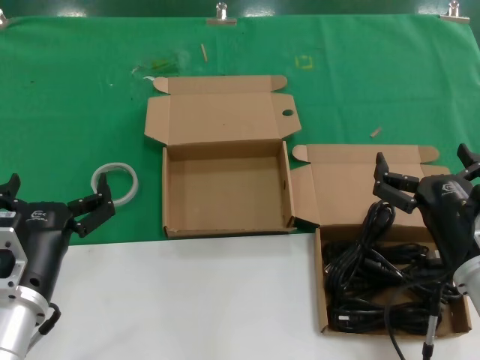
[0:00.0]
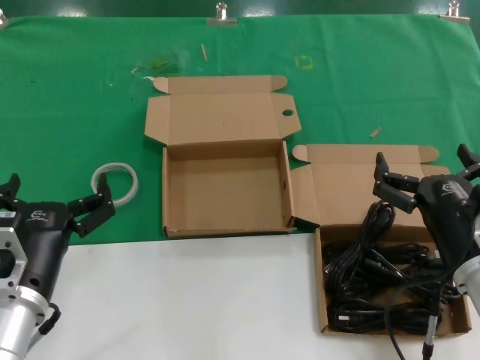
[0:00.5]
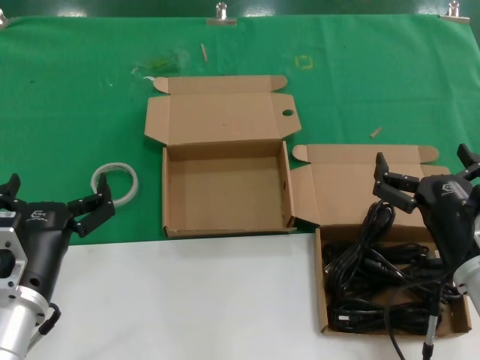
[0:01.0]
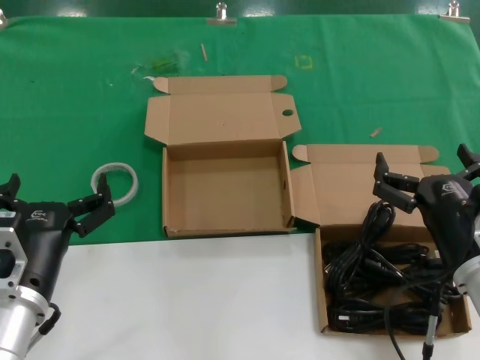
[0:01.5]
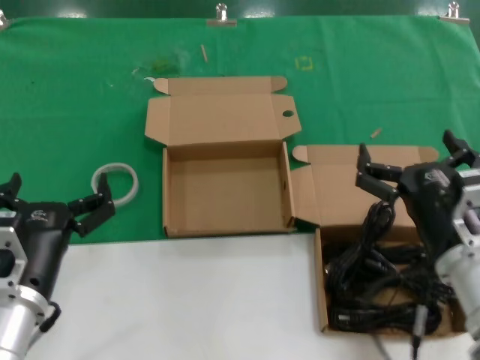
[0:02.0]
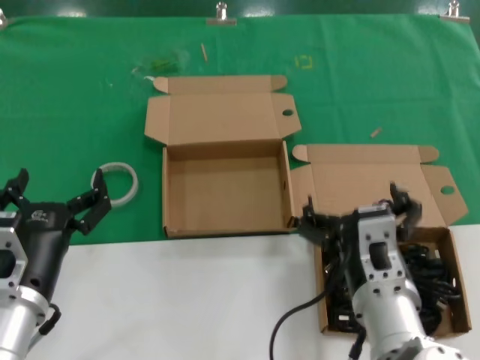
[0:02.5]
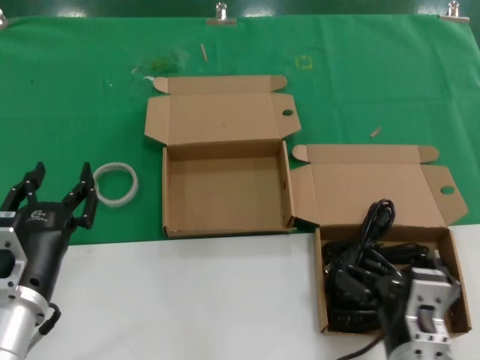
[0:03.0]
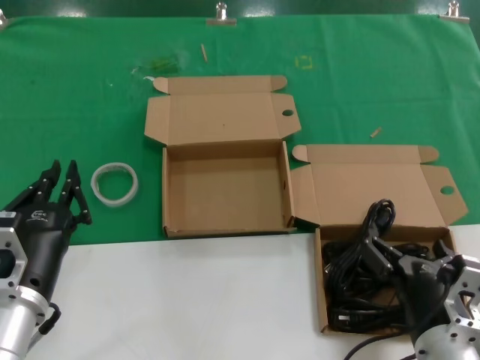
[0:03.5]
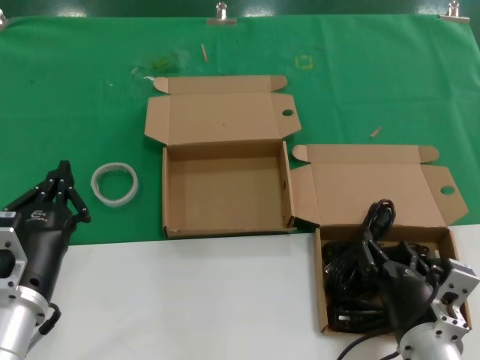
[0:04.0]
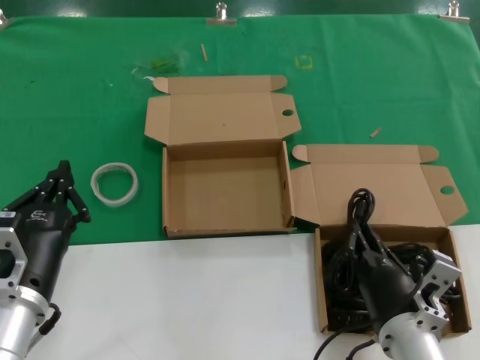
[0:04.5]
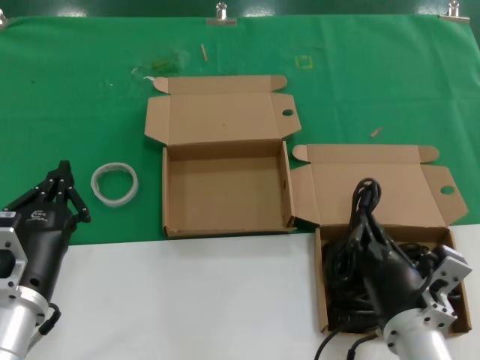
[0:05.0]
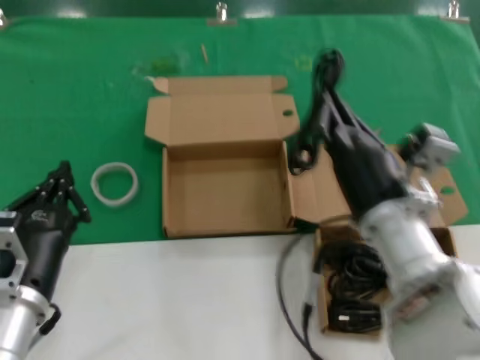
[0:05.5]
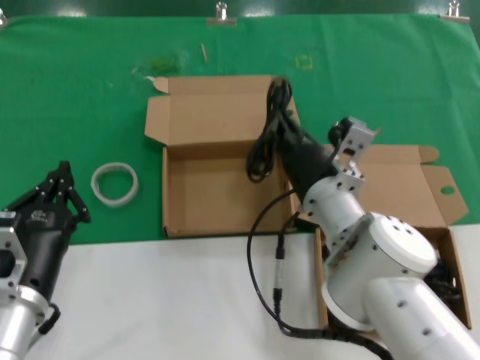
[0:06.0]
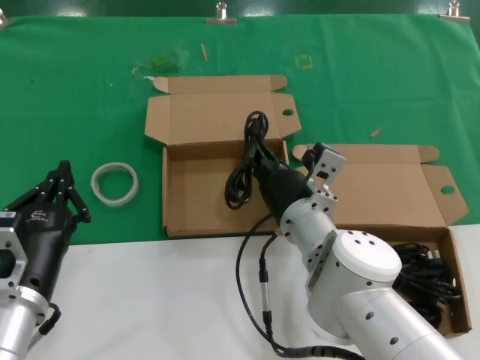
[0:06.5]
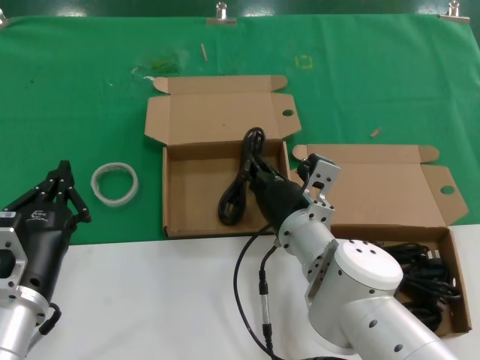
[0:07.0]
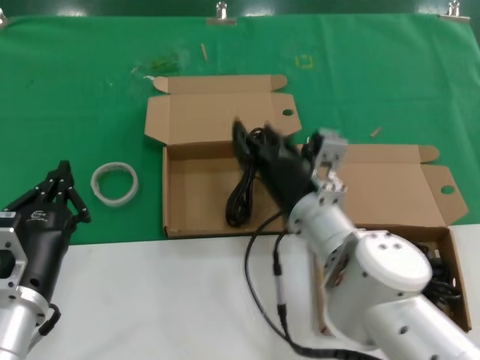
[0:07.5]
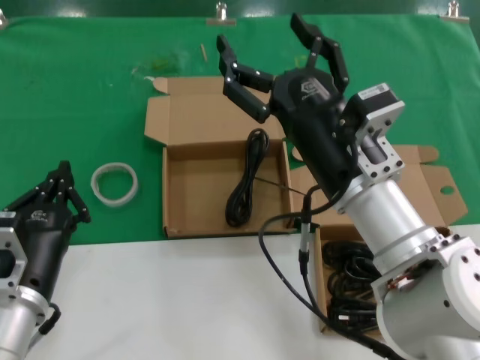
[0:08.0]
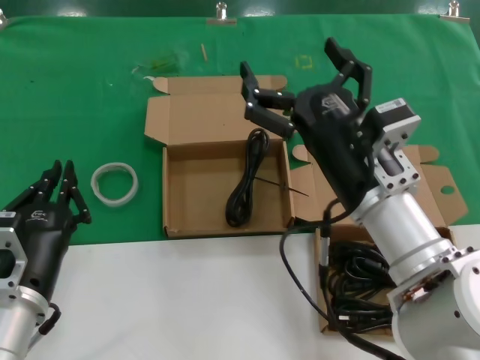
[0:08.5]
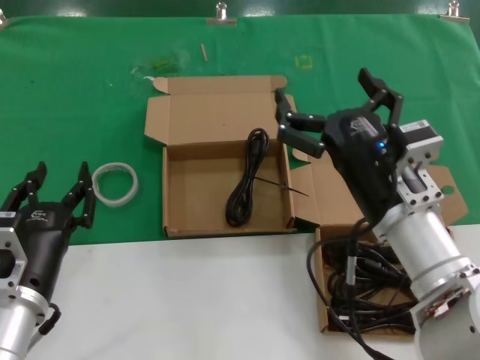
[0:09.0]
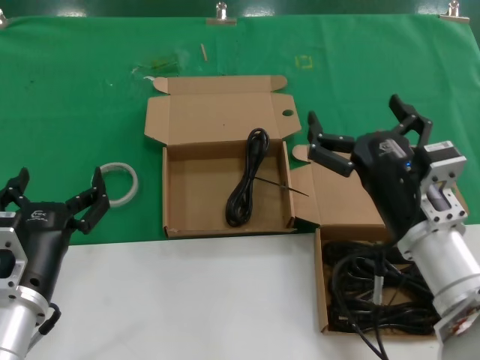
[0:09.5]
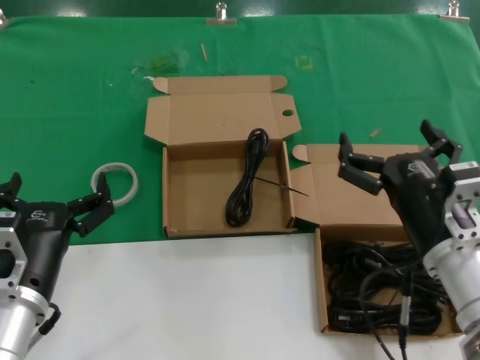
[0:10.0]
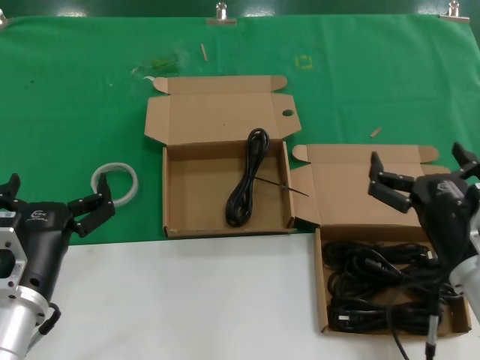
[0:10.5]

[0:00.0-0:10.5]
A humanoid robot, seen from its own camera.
Task of the whole recording: Pick up the power cord from the box containing it and place it in another box.
Step, 0:00.0 to 0:04.5: Grasp the data cable.
Step, 0:05.0 to 0:07.5: Place the data cable in the another box.
0:00.0 to 0:02.0: There are only small adjustments of the hands.
0:02.0 to 0:04.0: The right hand shifts some 10 cm downward.
0:04.0 to 0:06.5: The right hand shifts some 20 cm forward and to the left.
0:06.5 to 0:08.5: The right hand shifts some 15 cm upward, backward and to the right.
0:08.5 to 0:10.5: The right hand goes about 15 cm to the right and downward.
